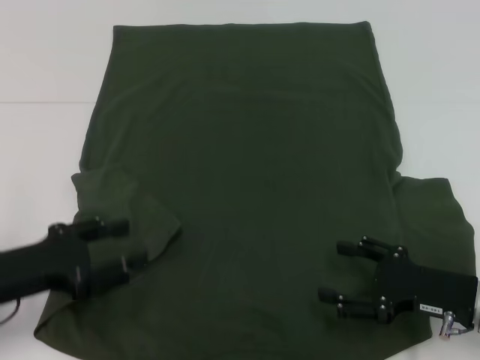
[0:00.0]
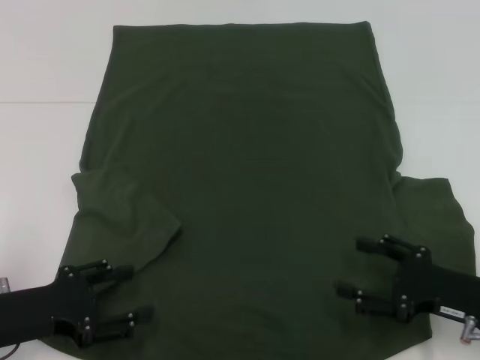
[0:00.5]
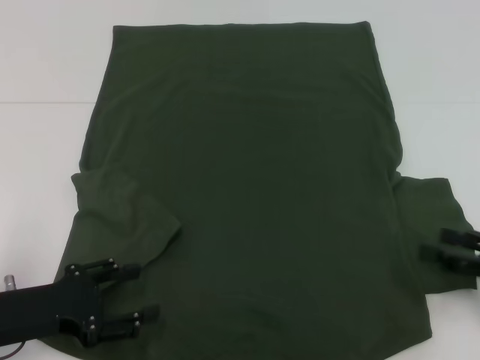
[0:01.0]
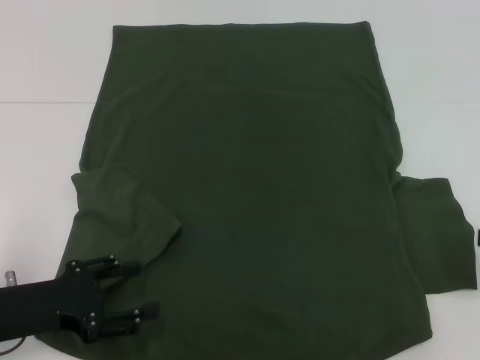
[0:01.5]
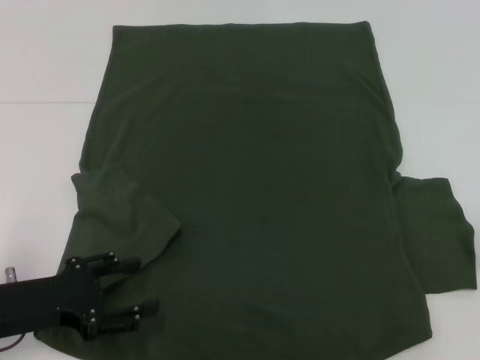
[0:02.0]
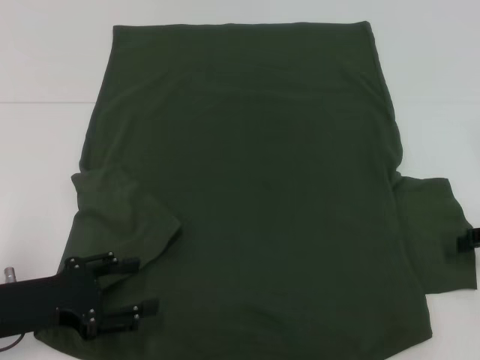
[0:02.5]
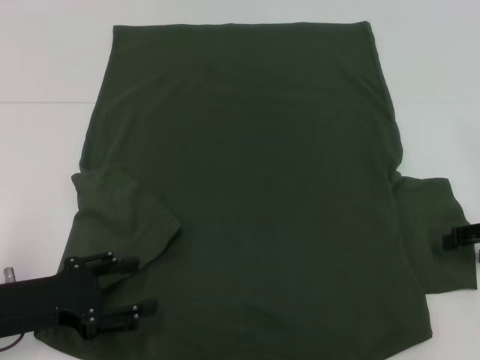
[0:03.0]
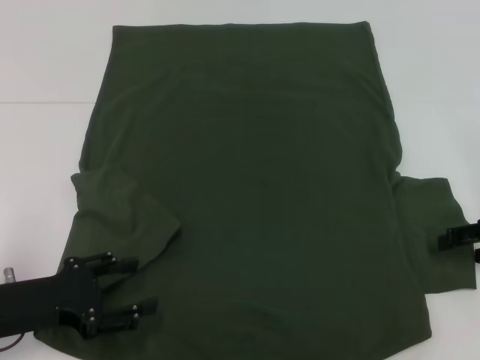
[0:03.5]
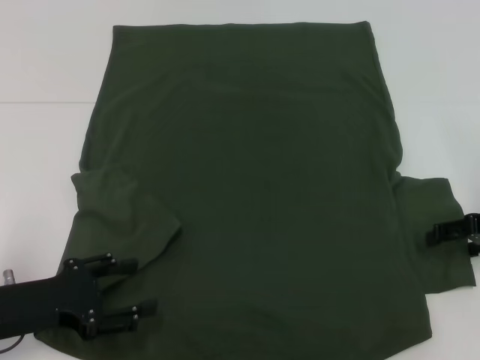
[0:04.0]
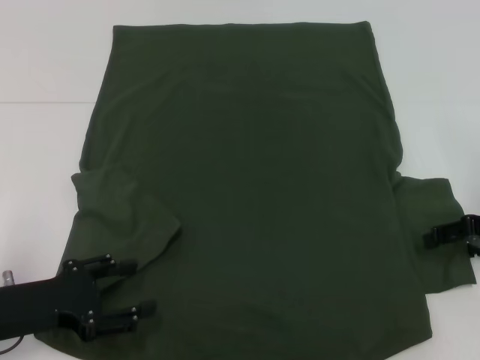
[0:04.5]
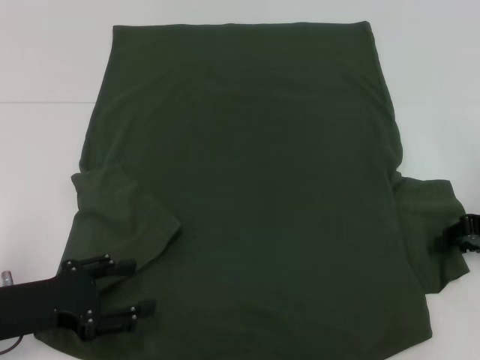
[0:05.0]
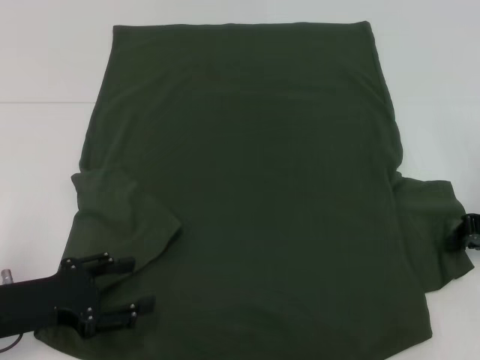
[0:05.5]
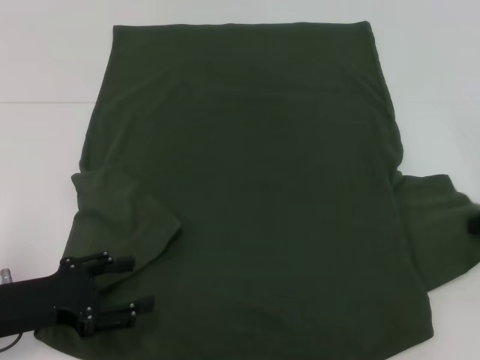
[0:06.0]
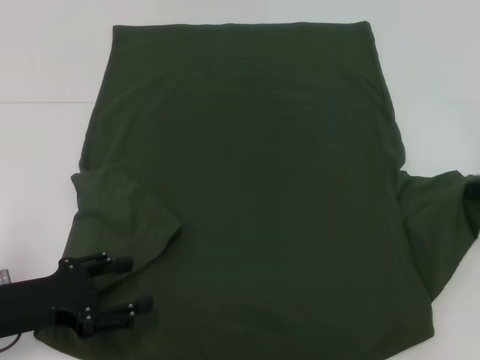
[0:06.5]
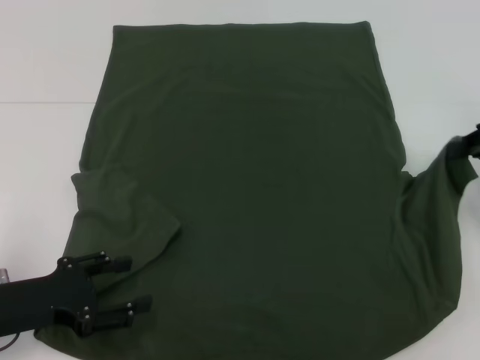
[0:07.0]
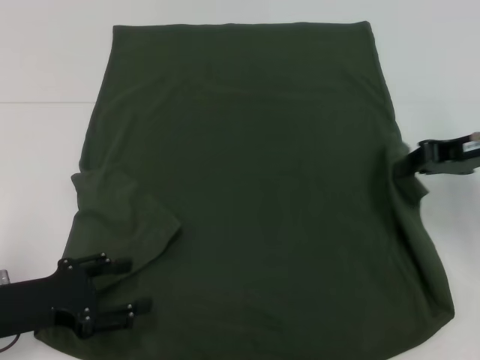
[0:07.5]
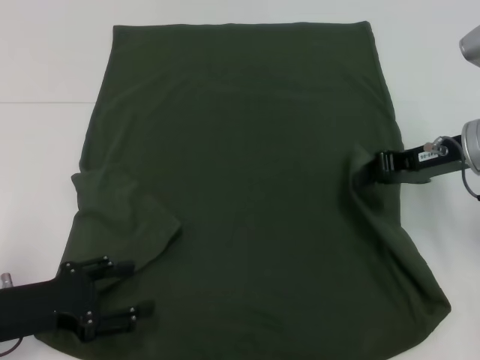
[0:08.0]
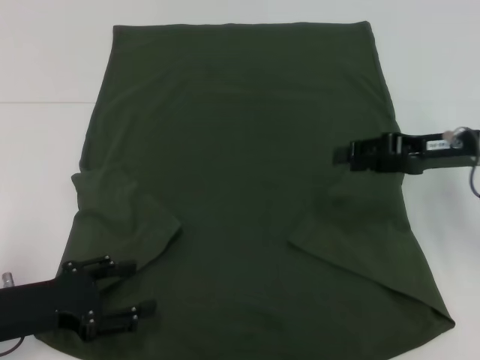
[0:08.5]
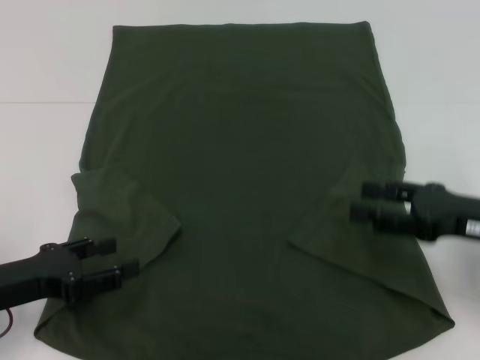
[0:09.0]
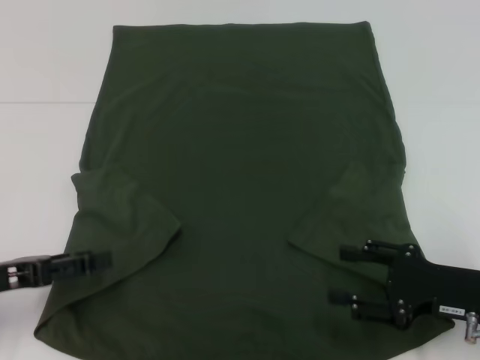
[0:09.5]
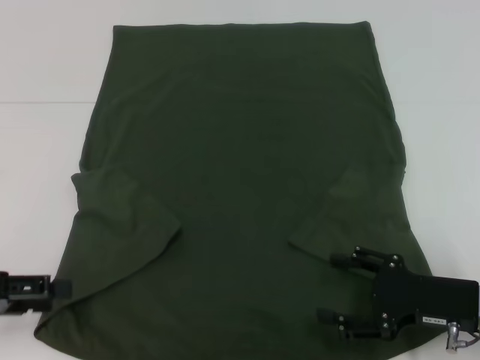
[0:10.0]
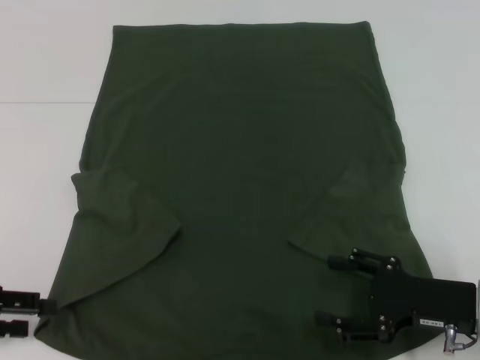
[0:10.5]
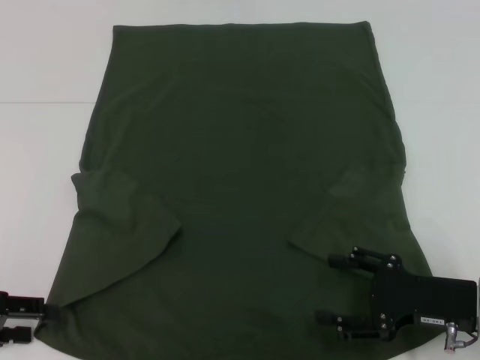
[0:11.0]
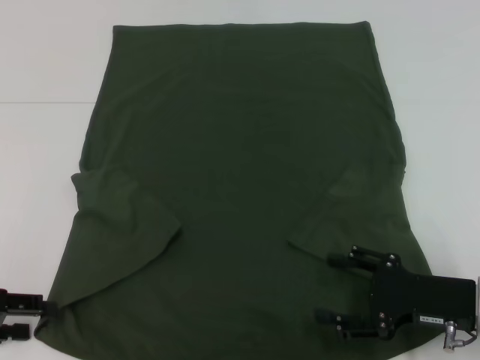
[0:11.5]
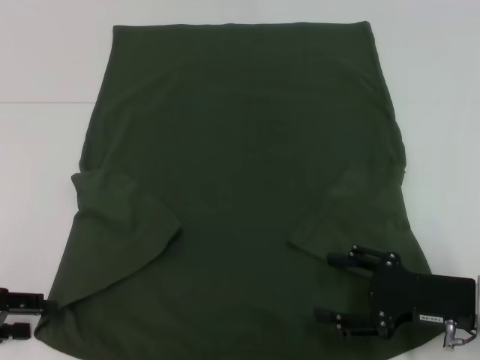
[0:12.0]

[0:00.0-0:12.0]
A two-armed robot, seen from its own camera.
Step, 0:00.0 to 0:09.0: Fold the clothes with your right hand.
0:00.0 to 0:02.0: The right gripper shifts roughly 20 cm to the right, upward and forward.
0:02.0 to 0:04.0: The right gripper moves to the left, roughly 5 cm.
0:04.0 to 0:06.0: The right gripper closes its fingers.
0:06.0 to 0:08.0: The right gripper moves to the left, about 10 cm.
0:08.0 to 0:10.0: The left gripper moves to the left and upward, roughly 10 cm; the right gripper heads backward and downward, covering some 15 cm, and opens up.
0:10.0 to 0:12.0: The grippers move only a little.

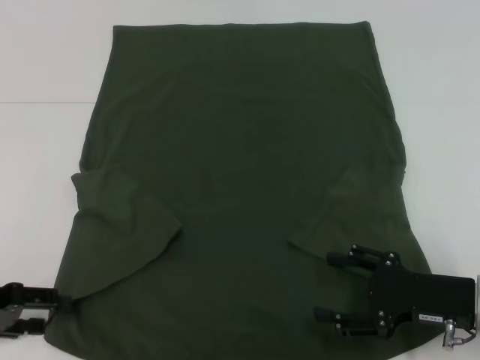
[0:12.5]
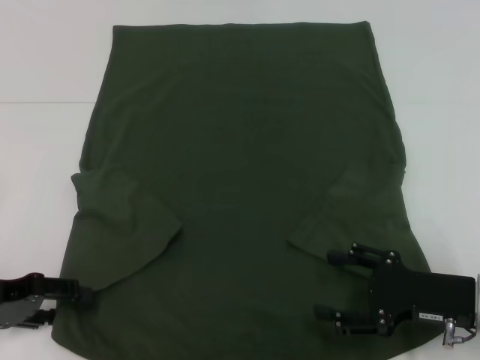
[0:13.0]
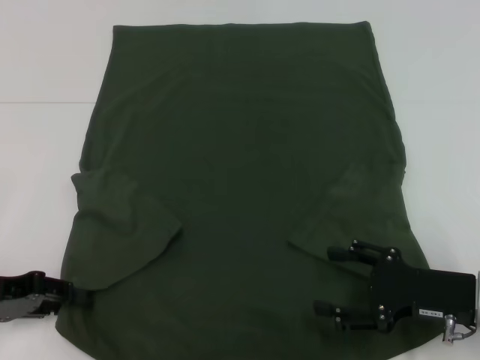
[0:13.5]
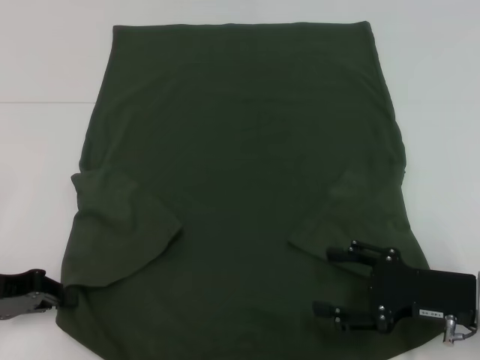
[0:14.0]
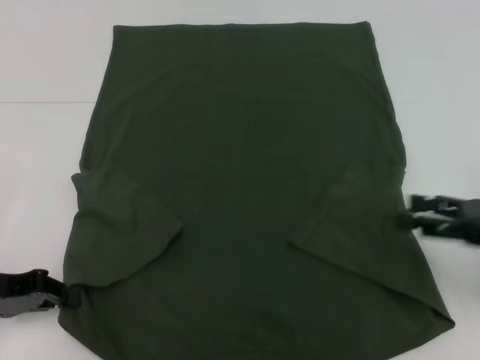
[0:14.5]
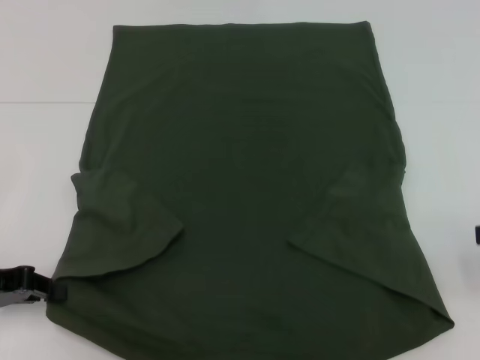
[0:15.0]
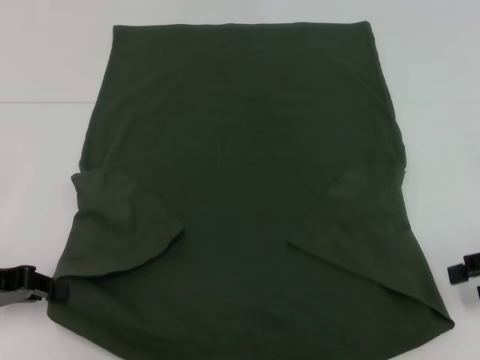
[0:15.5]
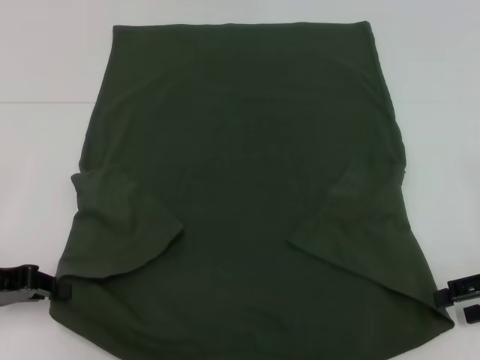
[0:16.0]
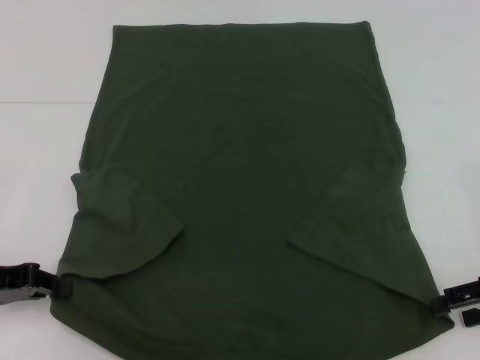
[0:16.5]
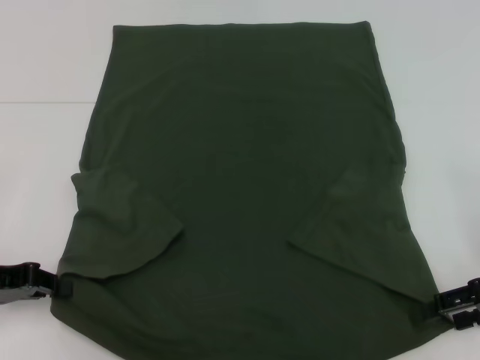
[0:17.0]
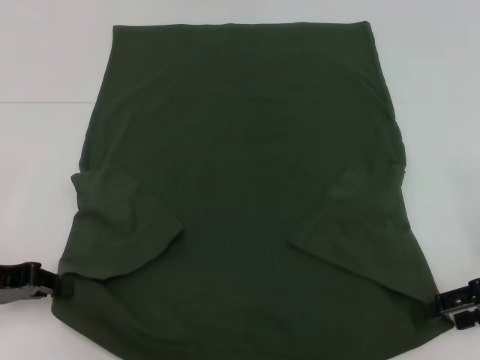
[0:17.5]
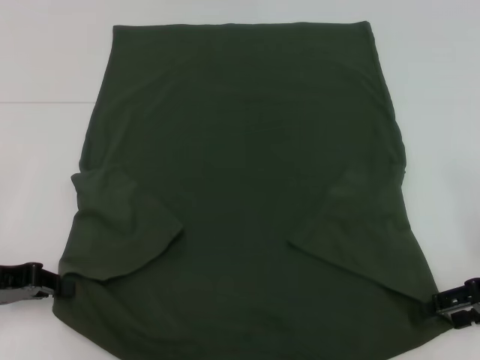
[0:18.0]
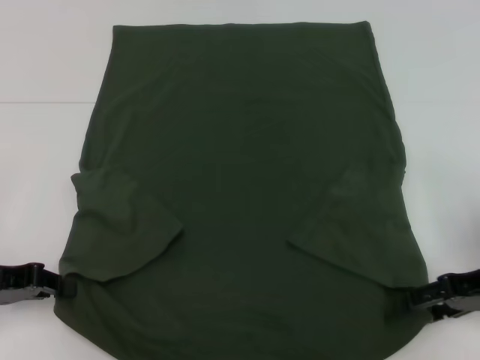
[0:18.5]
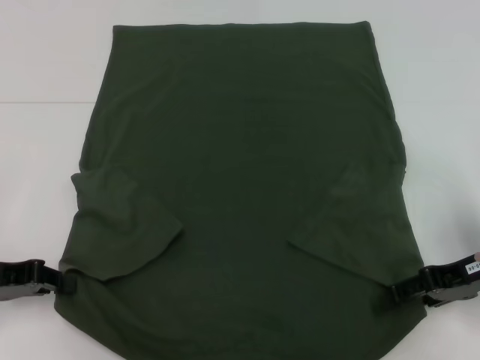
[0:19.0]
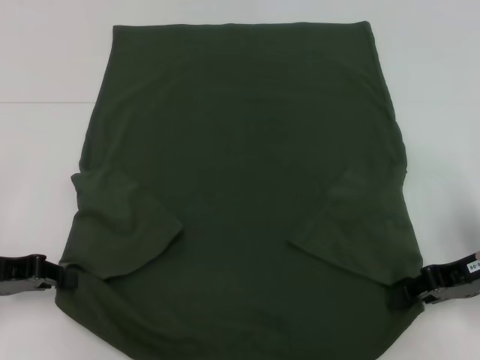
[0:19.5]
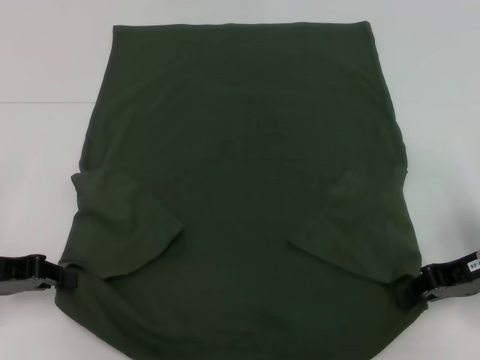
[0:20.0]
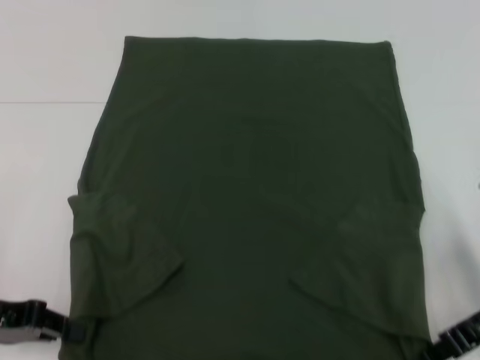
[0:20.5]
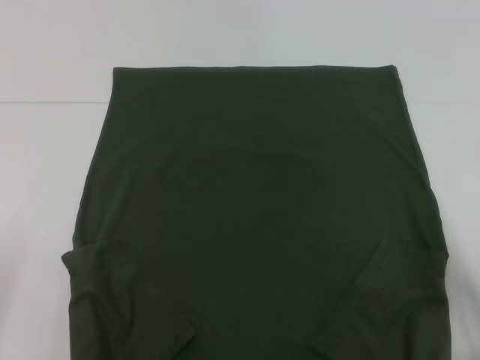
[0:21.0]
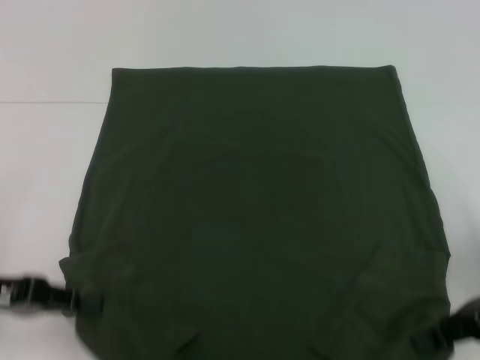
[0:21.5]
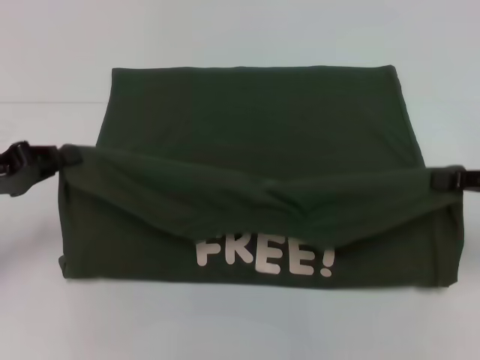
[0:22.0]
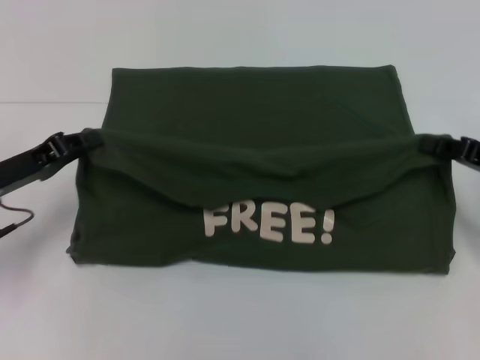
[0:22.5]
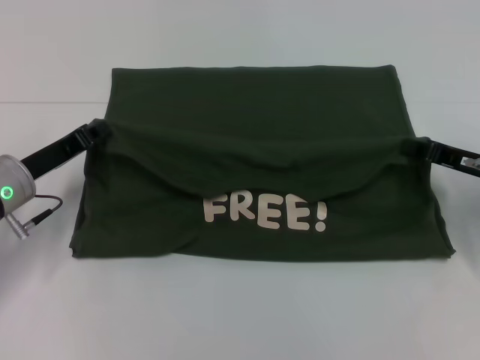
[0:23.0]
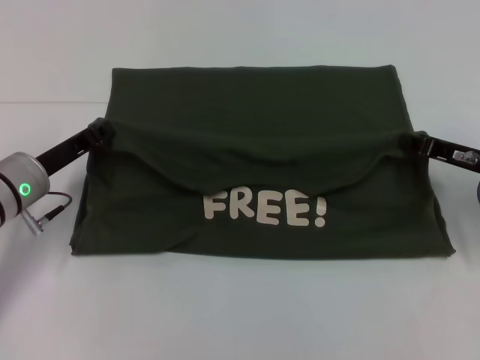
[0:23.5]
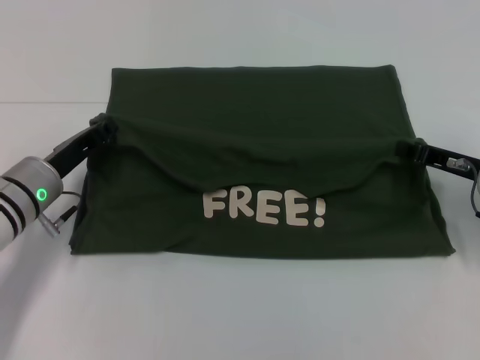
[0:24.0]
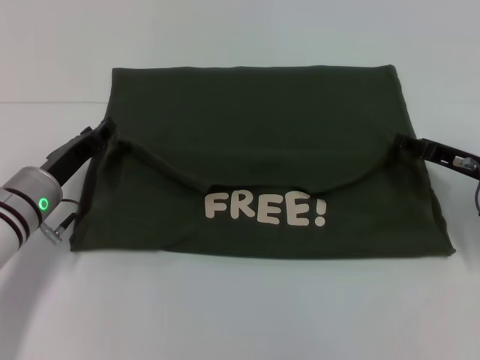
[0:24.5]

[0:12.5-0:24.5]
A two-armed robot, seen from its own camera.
Step, 0:12.5 to 0:14.5: Grab the bottom left corner with your left hand.
Step, 0:15.0 to 0:20.0: Grab the bottom right corner with your right hand.
0:12.5 to 0:14.5: The right gripper goes some 10 cm upward and to the right. The left gripper closes up.
0:16.5 to 0:18.5: The grippers make only small movements.
0:18.5 to 0:20.5: The right gripper closes.
0:20.5 to 0:22.5: The right gripper moves to the right, roughly 5 cm; the left gripper is displaced forward by approximately 5 cm.
0:22.5 to 0:24.5: The right gripper changes place by some 5 cm; the left gripper is displaced to the right by roughly 5 cm.

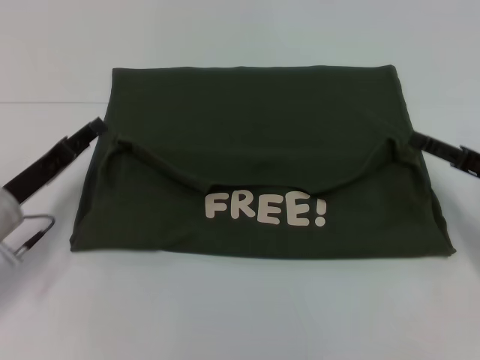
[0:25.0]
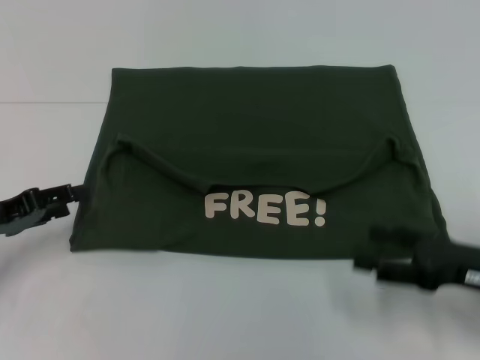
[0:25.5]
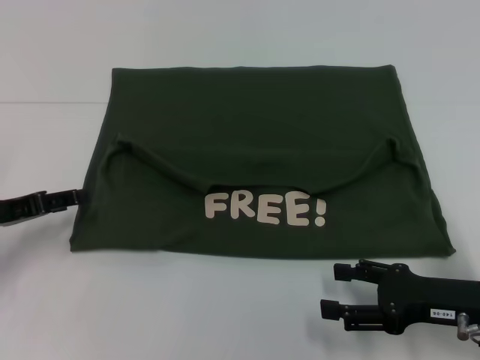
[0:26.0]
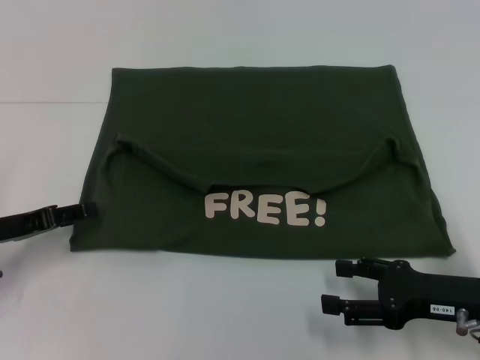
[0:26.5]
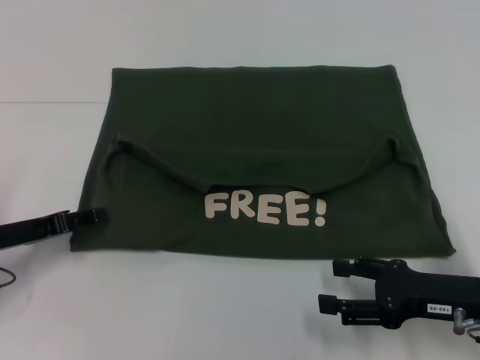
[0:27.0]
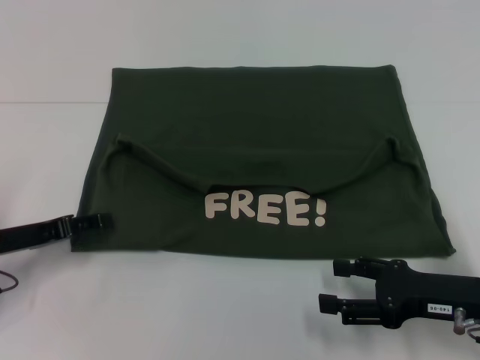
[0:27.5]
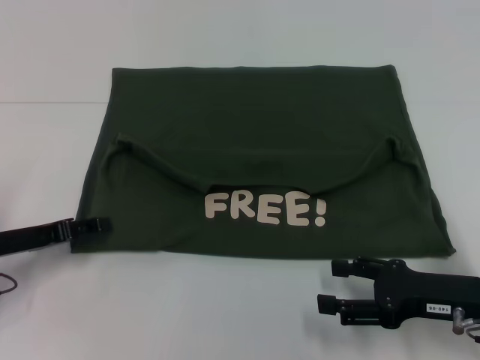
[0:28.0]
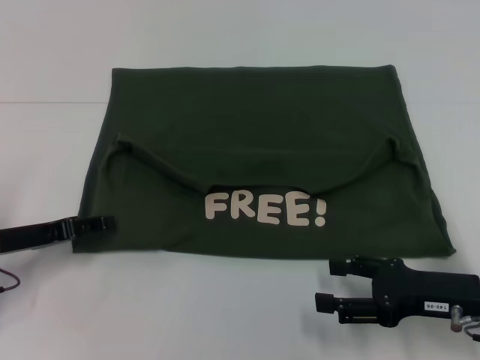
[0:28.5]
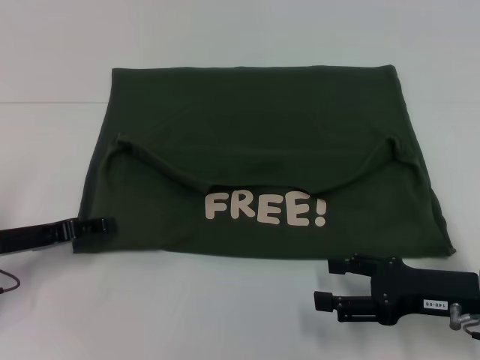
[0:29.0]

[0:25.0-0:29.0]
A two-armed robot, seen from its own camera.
0:25.0 to 0:27.0: The right gripper is displaced backward and to the left by about 10 cm.
0:27.0 to 0:29.0: The two grippers keep their place.
